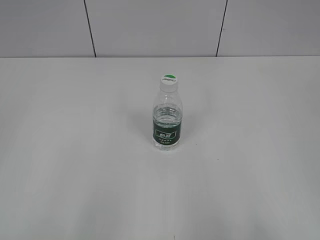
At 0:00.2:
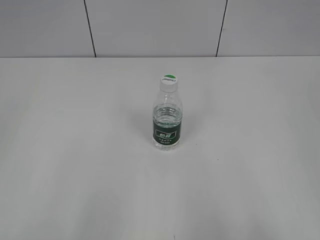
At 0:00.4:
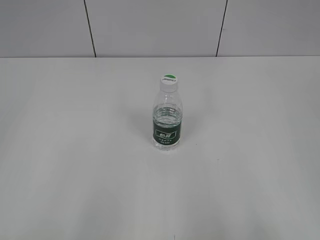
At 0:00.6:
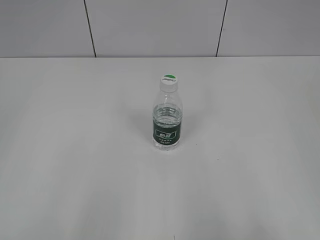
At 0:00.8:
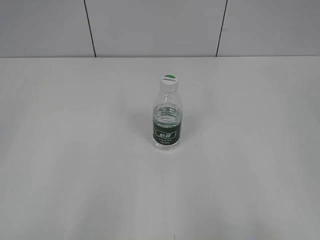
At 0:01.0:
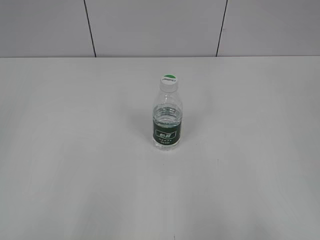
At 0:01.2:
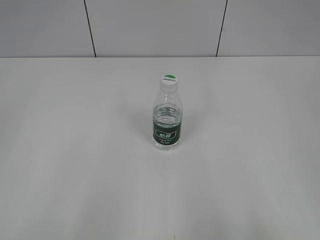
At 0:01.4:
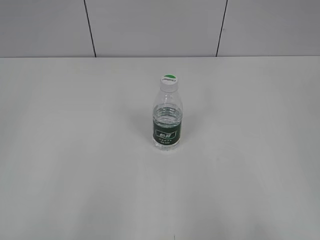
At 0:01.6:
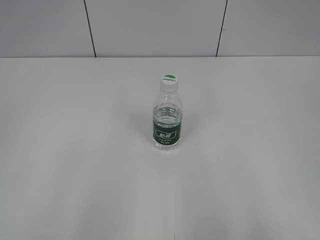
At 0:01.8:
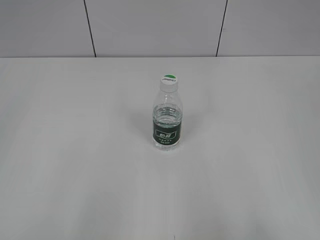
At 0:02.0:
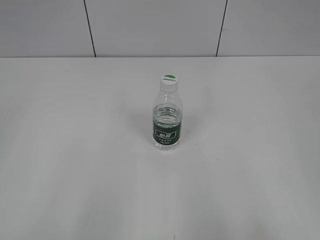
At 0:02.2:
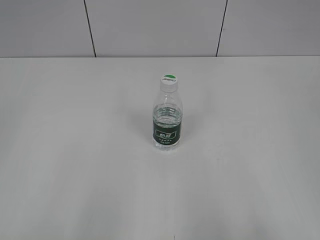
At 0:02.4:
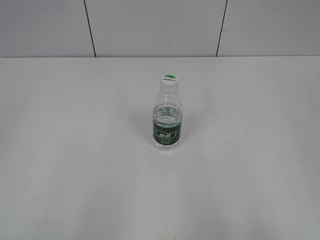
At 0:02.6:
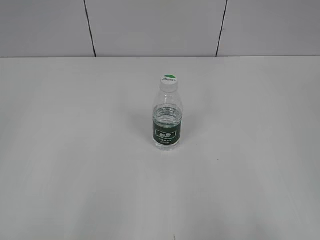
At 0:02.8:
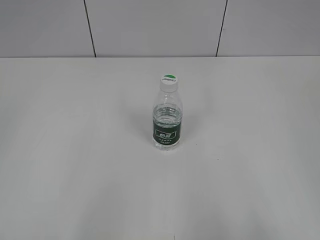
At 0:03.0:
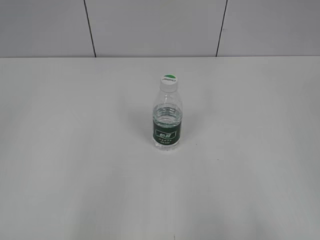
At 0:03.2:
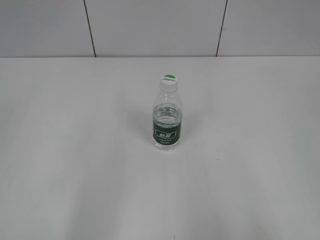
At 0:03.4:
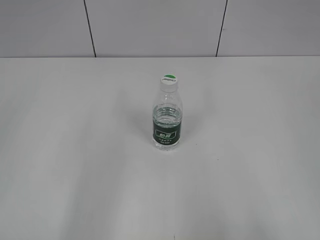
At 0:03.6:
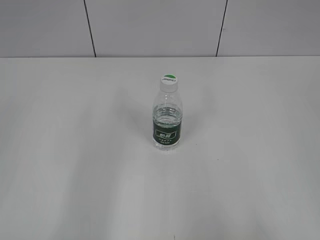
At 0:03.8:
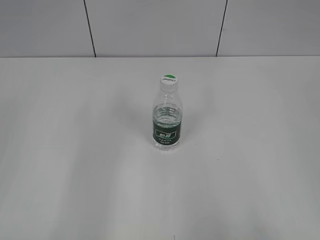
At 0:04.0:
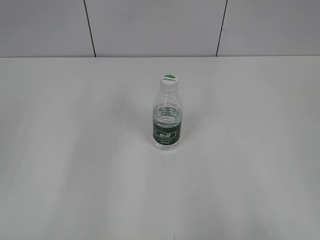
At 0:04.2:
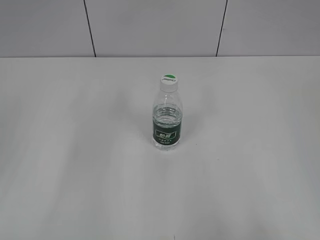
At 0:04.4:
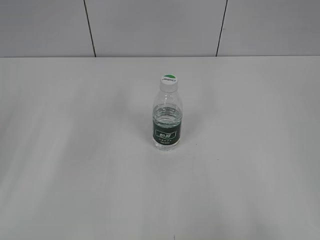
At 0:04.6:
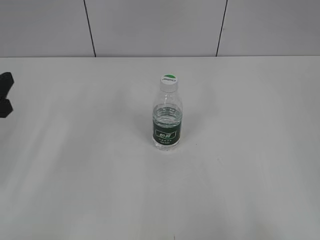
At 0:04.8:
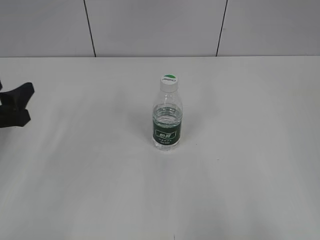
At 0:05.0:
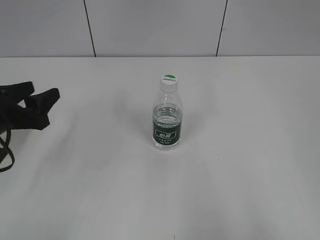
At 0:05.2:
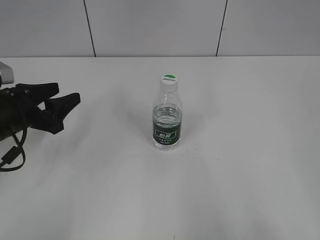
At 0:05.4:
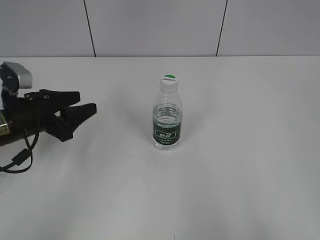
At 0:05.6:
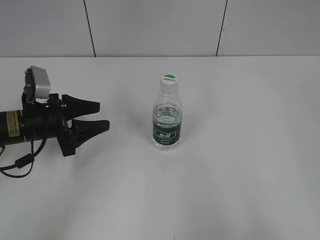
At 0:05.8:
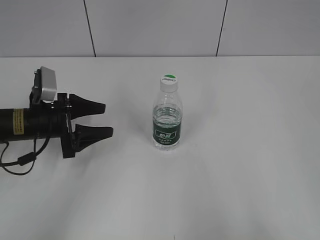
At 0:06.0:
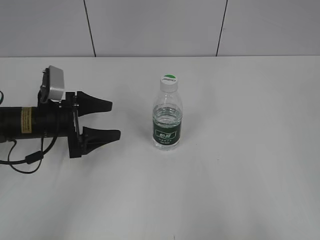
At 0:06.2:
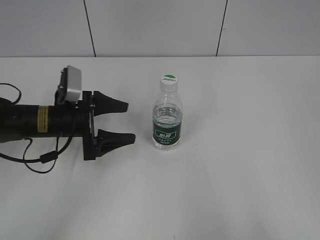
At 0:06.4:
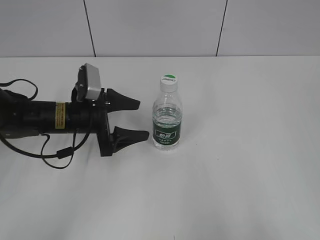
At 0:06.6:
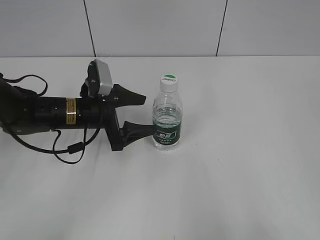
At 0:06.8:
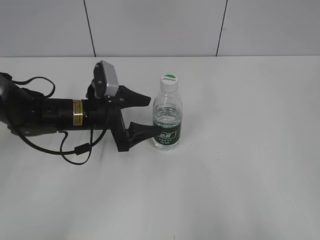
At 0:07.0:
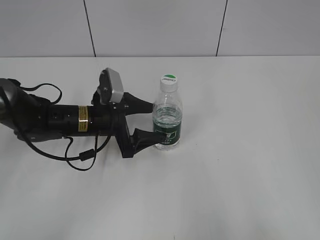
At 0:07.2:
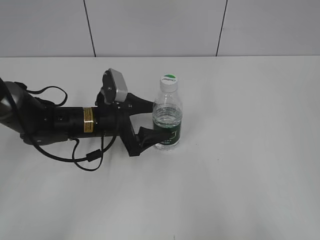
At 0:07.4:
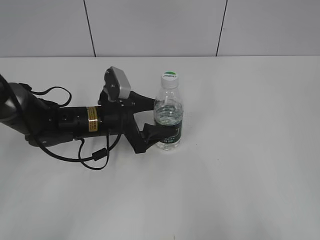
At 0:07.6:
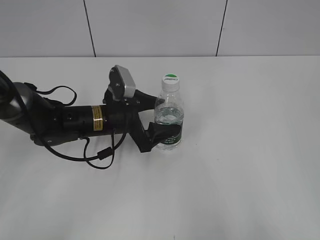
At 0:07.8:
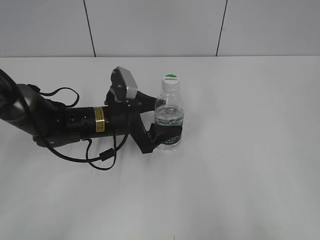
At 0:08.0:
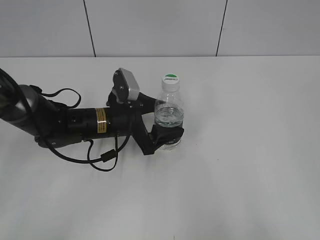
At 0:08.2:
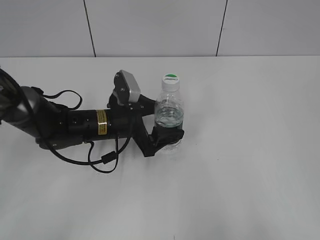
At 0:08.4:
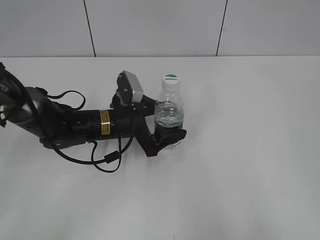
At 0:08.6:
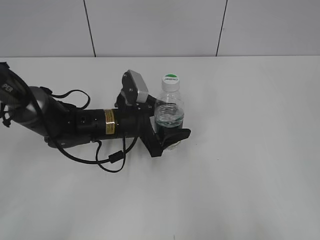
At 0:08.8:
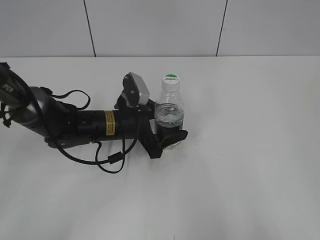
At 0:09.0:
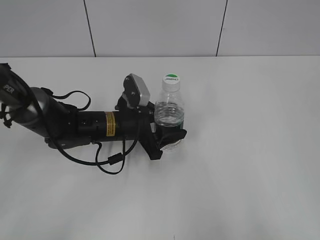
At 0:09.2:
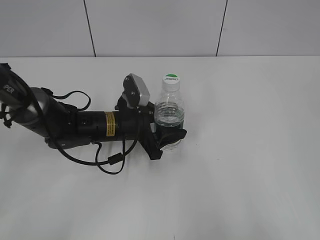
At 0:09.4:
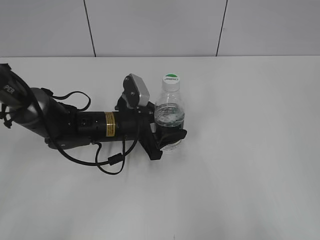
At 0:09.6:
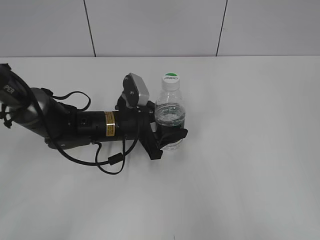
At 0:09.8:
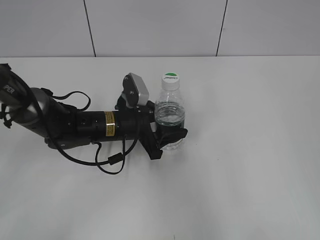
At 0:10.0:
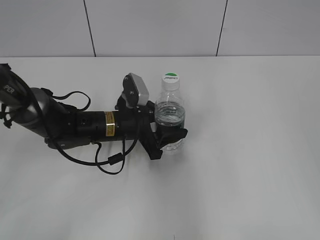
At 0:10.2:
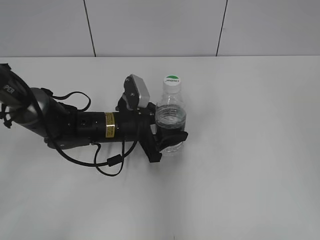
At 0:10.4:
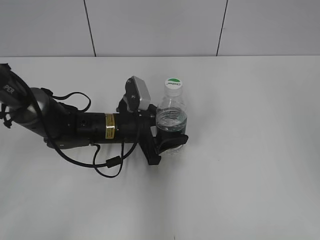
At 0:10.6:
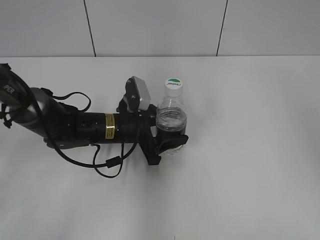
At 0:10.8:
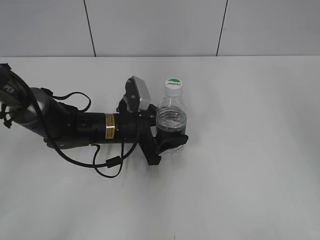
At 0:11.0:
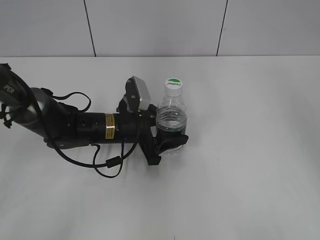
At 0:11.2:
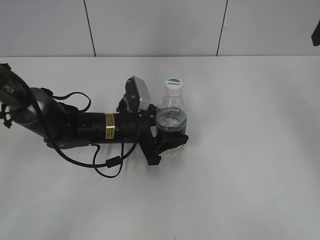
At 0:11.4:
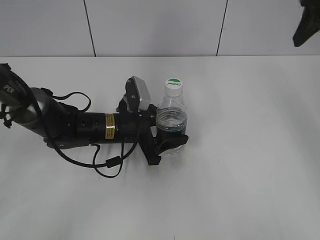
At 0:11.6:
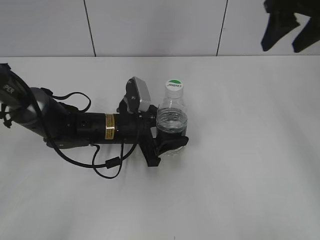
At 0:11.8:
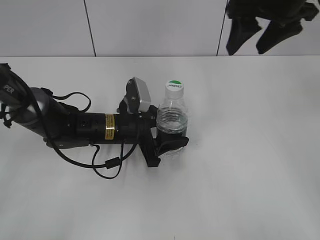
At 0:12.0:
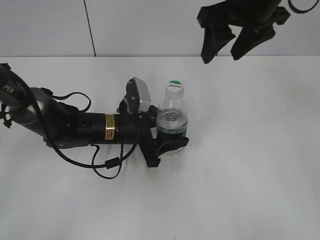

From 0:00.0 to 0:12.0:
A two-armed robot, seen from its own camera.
Step, from 0:00.0 to 0:09.4: Grasp the bottle and move it to the center of the table with the left gripper.
From 0:04.4 to 0:06.0: The left gripper is displaced forward, downward and to the right by some 20 cm, and opens.
From 0:06.0 to 0:07.6: The left gripper goes approximately 10 cm to the right.
From 0:07.6 to 0:09.0: The left gripper closes.
From 0:09.0 to 0:10.4: The right gripper heads forward and upward, covering some 20 cm.
From 0:10.4 to 0:12.0: The right gripper moves forward and to the left, approximately 25 cm.

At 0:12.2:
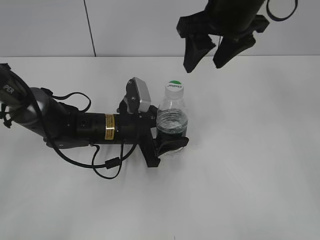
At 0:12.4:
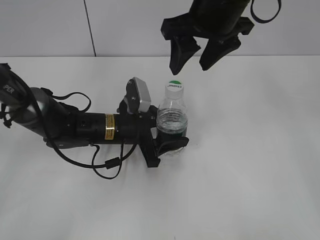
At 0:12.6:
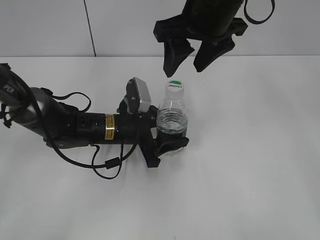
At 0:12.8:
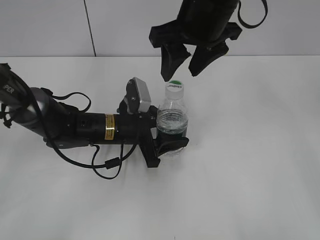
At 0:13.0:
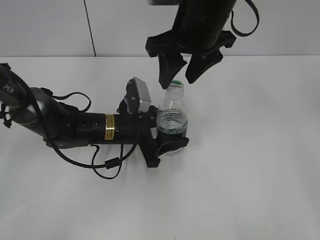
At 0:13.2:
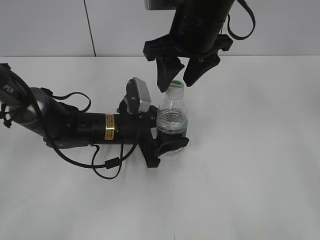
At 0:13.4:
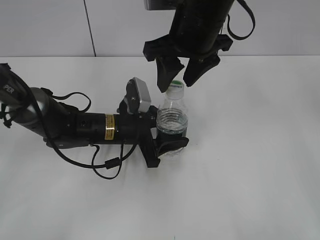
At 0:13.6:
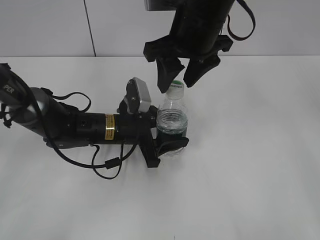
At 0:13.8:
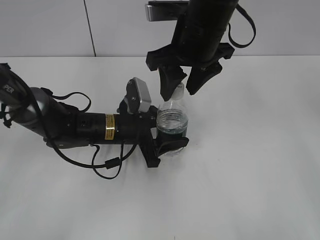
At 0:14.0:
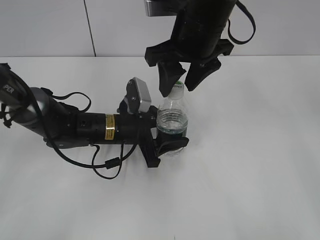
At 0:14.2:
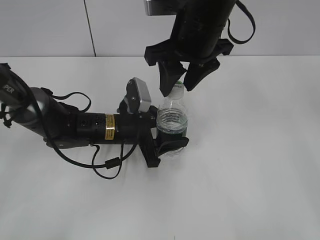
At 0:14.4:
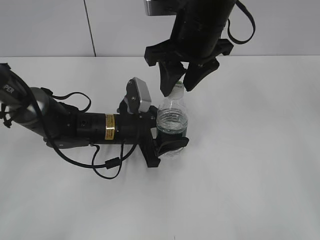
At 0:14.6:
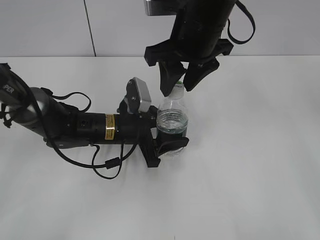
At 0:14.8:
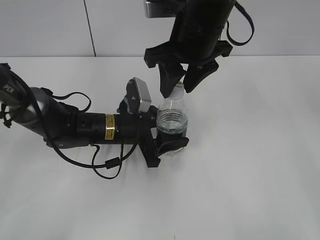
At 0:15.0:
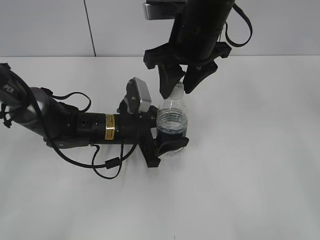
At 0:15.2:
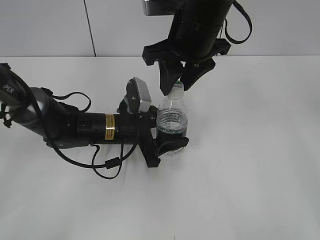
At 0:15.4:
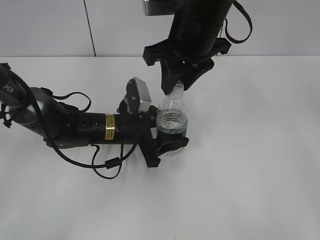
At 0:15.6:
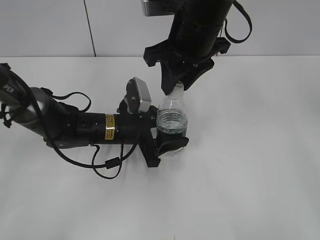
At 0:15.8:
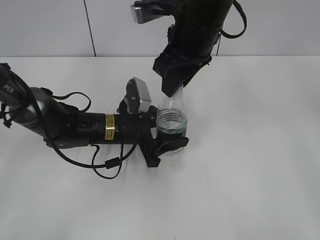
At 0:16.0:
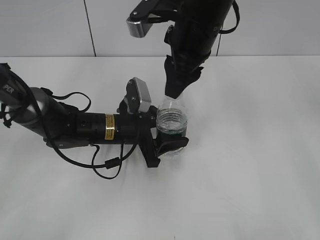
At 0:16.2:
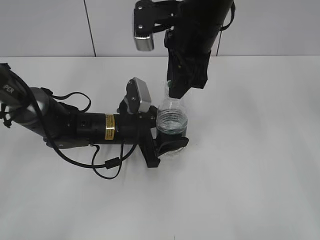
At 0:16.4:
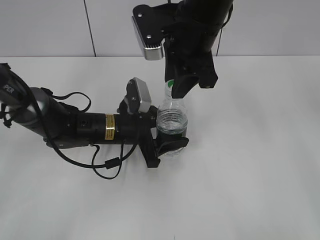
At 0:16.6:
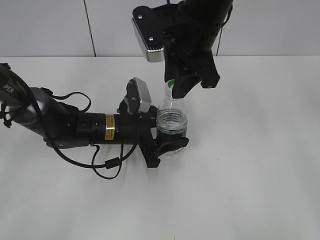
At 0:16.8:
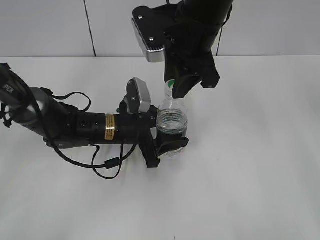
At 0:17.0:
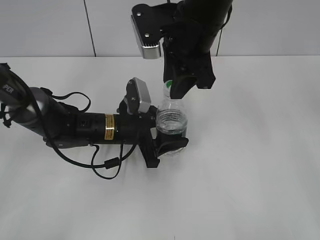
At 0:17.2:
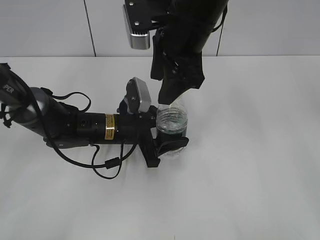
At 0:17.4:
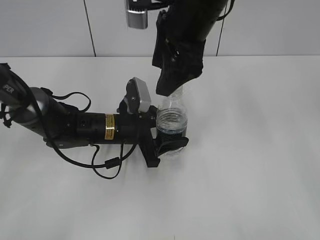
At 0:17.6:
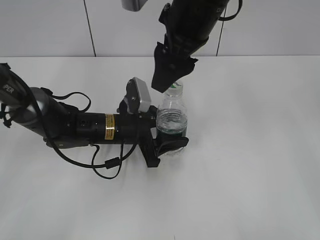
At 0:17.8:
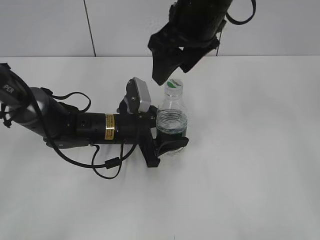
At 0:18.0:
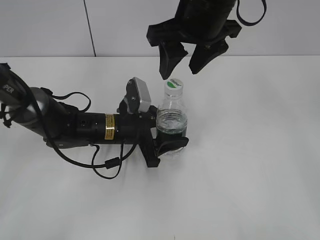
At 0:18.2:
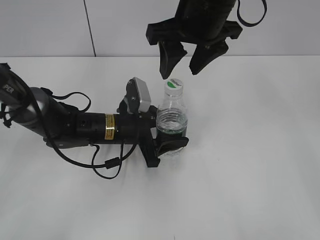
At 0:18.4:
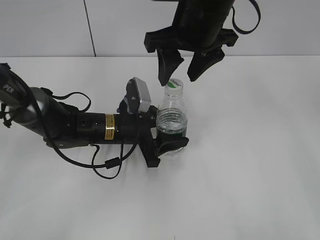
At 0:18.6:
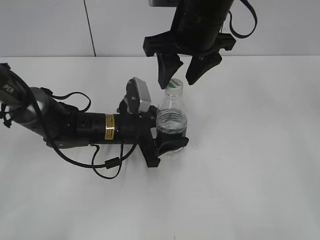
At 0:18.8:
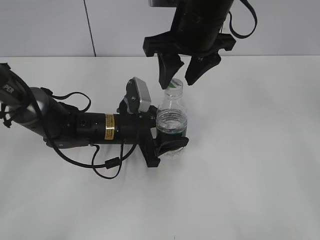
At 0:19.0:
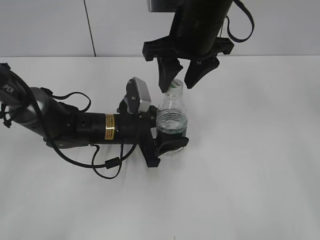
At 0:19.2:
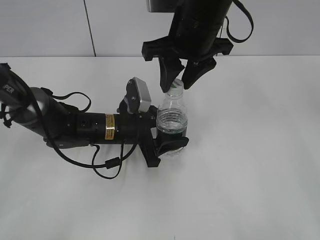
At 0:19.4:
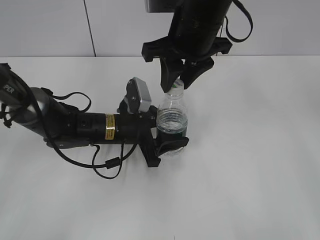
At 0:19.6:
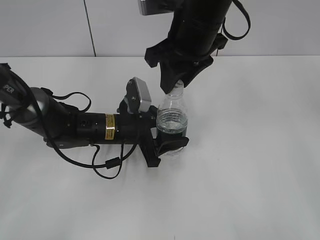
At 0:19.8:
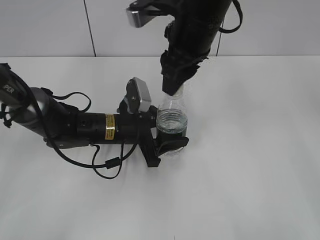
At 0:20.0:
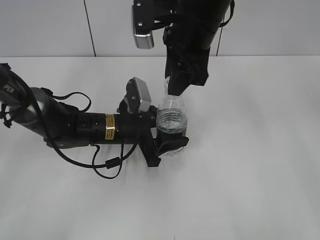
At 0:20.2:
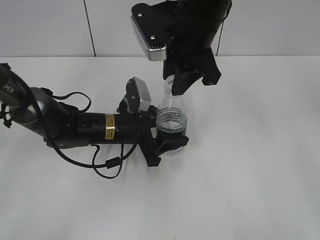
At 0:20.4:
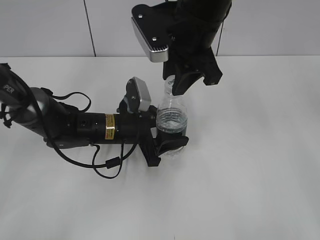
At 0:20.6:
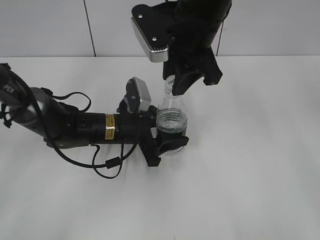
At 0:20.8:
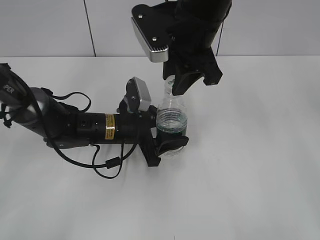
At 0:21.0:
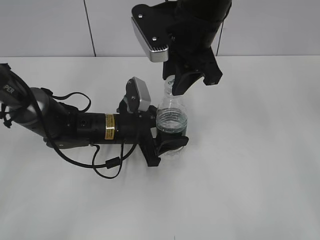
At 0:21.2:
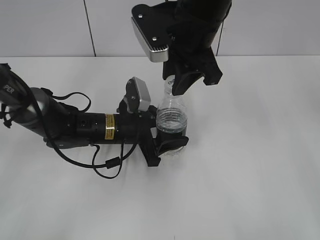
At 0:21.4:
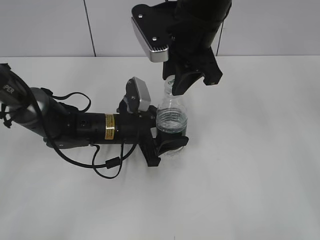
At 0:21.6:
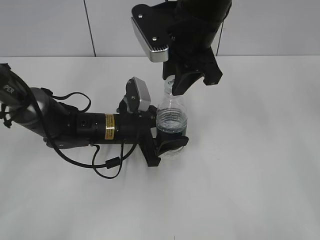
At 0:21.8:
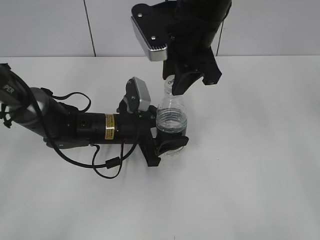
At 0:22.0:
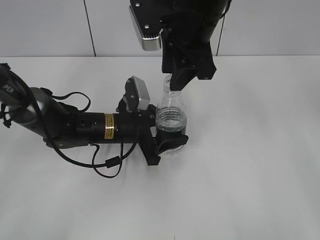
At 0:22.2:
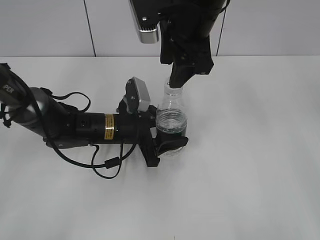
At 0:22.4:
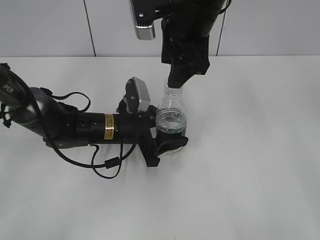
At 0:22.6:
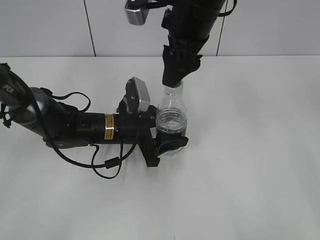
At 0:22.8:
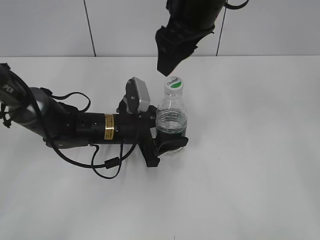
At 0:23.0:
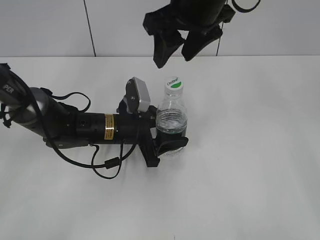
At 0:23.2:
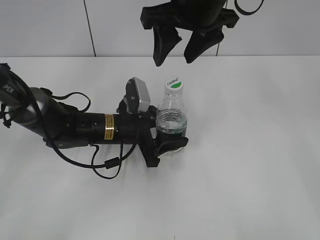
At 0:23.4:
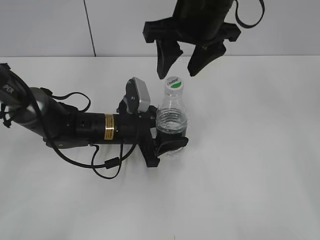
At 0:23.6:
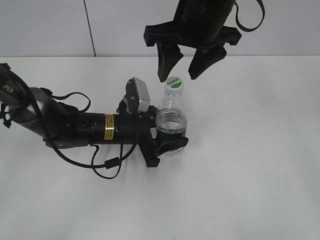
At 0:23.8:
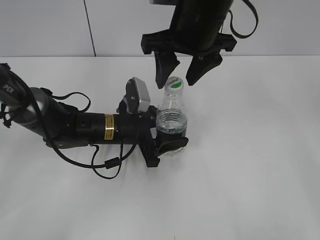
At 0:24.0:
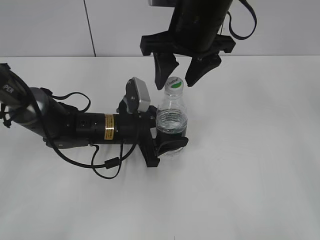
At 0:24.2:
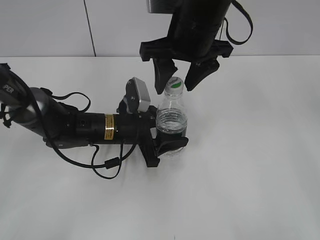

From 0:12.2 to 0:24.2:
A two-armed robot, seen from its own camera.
From 0:12.2 to 0:13.8: The right gripper moves about 5 cm.
From 0:13.8 to 0:15.2: Both grippers stay put.
From 0:16.6 to 0:18.2: The right gripper opens its fingers.
From 0:18.2 to 0:19.8: The right gripper closes its fingers.
From 0:21.2 to 0:22.6: The right gripper opens up.
